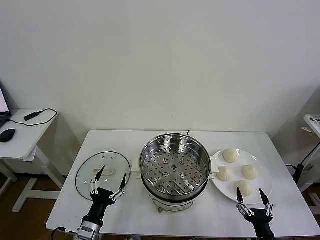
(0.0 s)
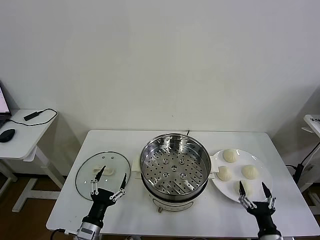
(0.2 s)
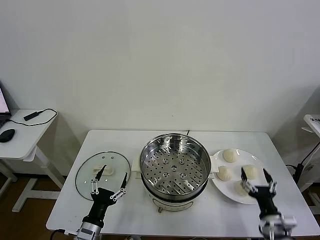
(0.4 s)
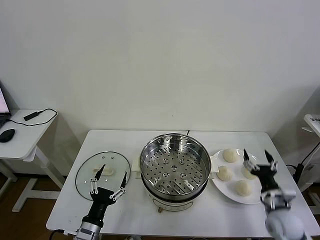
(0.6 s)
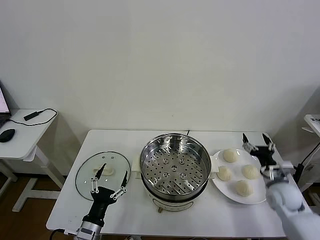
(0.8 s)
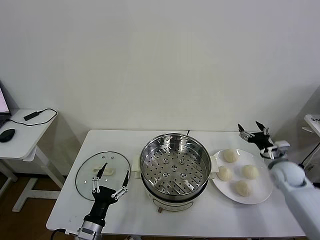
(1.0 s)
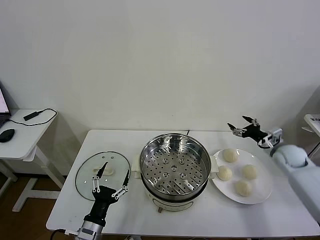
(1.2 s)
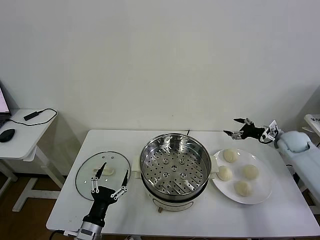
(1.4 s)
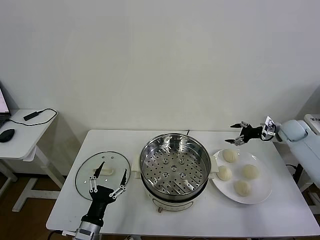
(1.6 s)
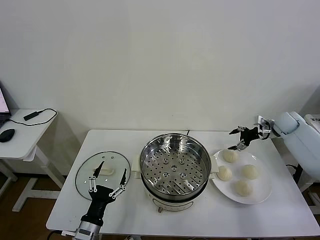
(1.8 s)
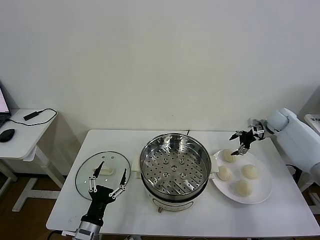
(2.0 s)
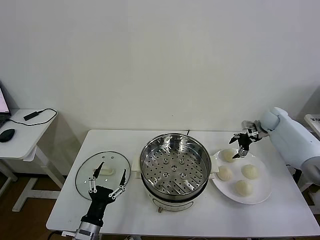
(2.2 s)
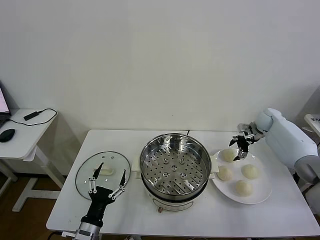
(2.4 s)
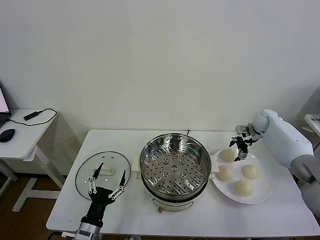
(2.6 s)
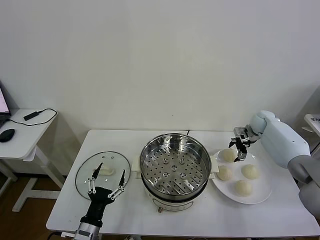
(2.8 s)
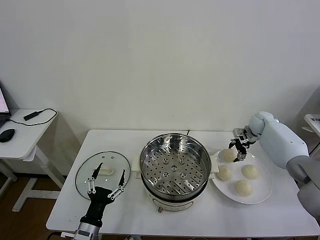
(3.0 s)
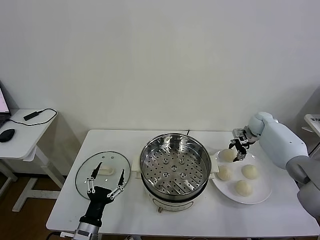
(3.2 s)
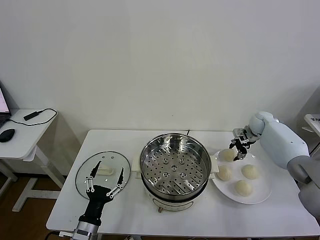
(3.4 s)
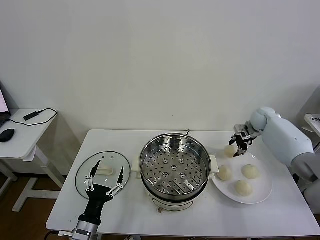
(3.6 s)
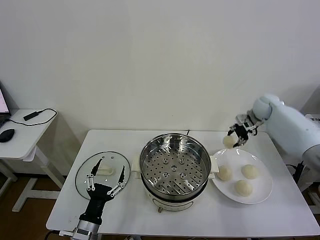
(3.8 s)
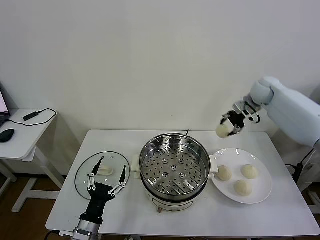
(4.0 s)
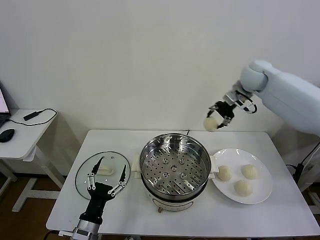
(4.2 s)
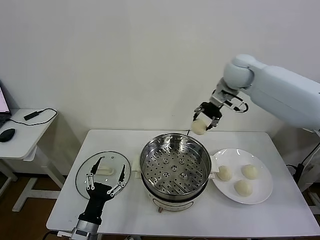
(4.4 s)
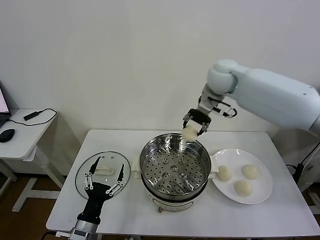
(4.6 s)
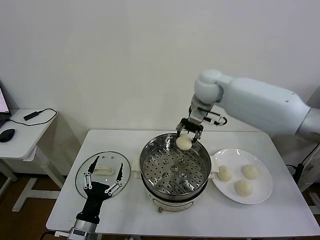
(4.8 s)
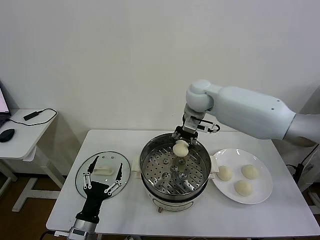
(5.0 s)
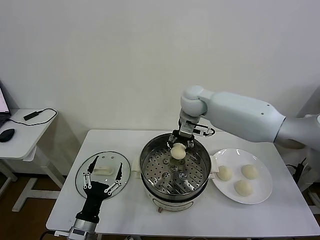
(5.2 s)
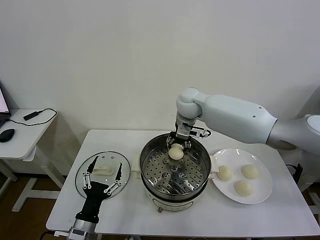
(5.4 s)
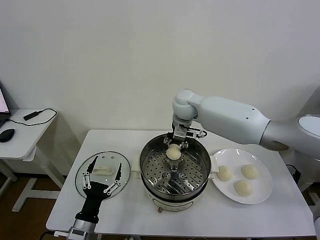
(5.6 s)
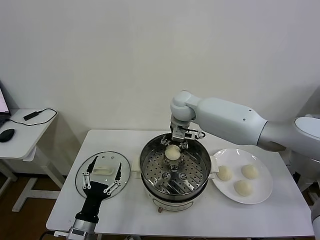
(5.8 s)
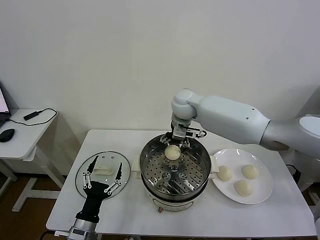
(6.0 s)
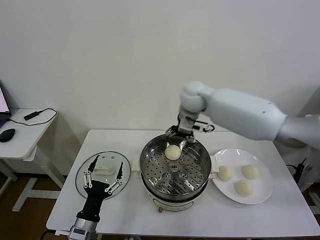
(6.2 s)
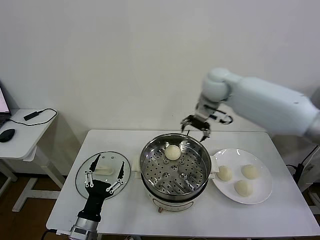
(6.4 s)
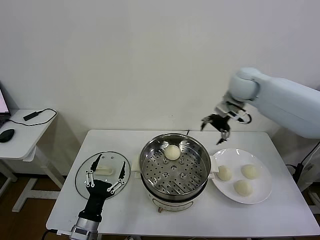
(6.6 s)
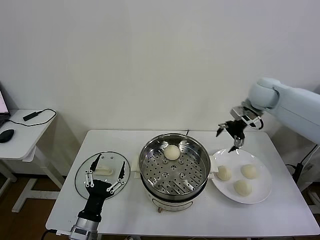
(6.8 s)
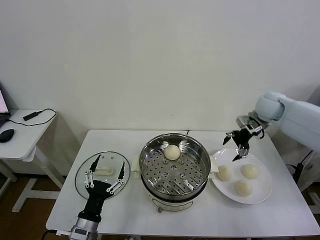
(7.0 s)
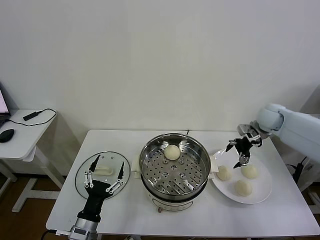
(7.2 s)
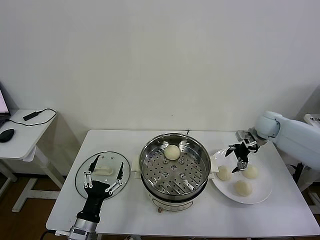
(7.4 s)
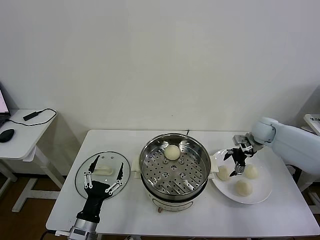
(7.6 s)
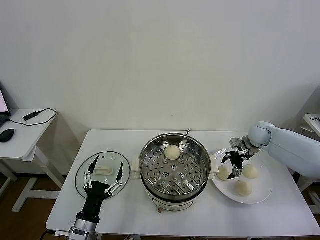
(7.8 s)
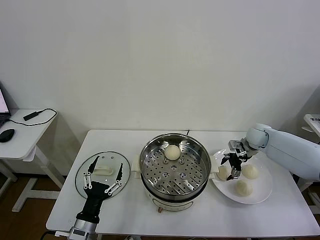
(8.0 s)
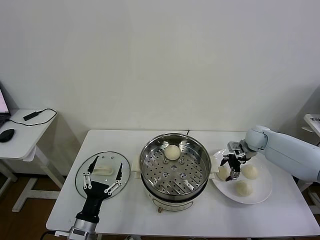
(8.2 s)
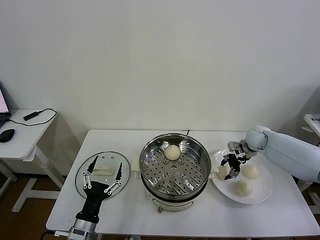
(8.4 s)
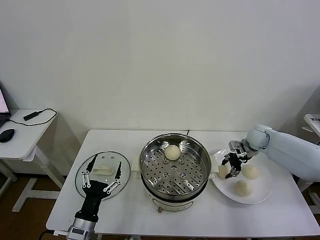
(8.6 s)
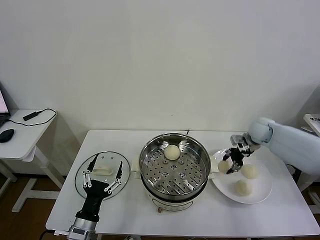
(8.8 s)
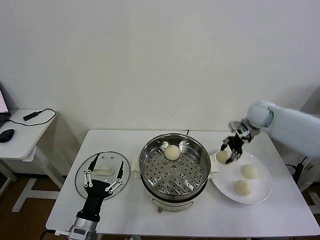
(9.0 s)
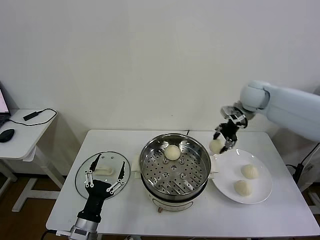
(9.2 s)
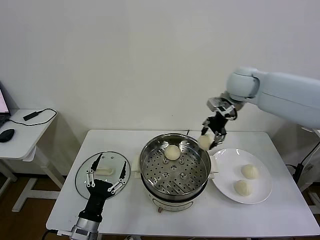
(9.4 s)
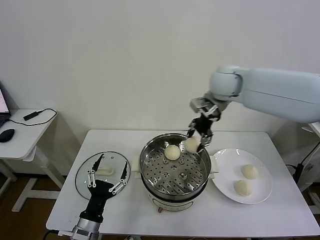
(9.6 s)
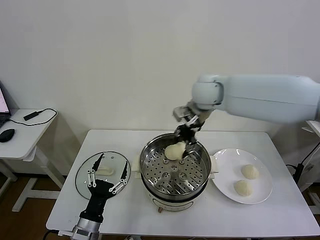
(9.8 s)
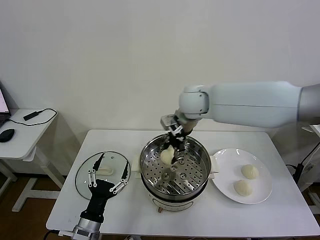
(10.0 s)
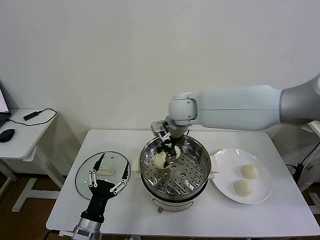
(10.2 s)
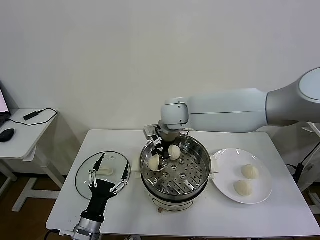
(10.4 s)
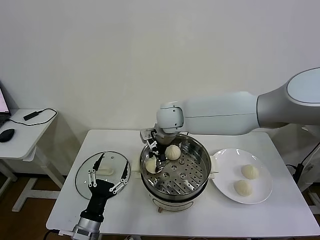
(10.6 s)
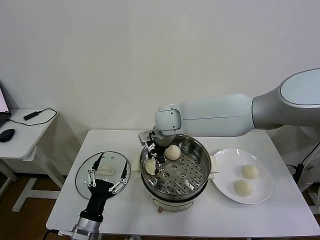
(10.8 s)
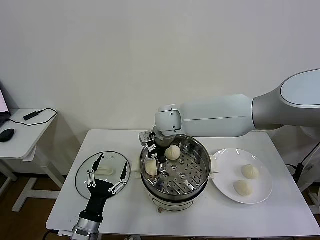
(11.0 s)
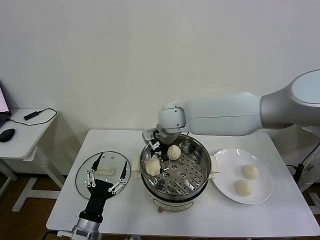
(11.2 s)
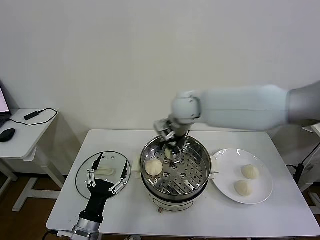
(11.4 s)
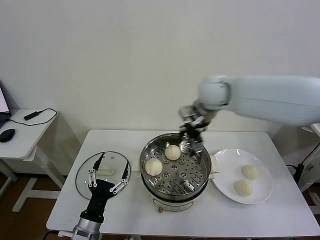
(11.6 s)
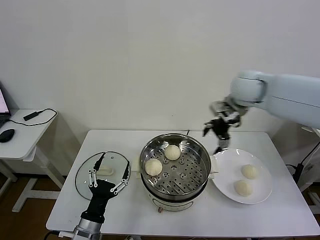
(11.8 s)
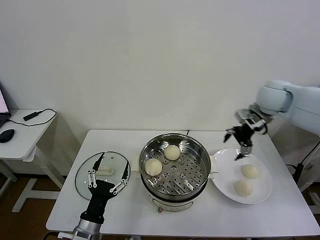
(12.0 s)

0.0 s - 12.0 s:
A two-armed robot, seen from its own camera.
Task of the whole recording: take steamed baozi put them in steamer then cover it.
Step, 0.0 s - 3.2 s: Grasp the baozi in the plate with right gripper.
Step, 3.4 s - 5.8 s: Place the baozi on the steamer with right gripper.
Step, 6.2 s - 8.4 s: Grasp the baozi in the plate with right gripper.
Step, 8.6 s - 11.0 s: Place the baozi on the steamer with right gripper.
1.6 s - 3.0 s: The right gripper travels to the left and forward by some 10 cm, and closes its fingers.
3.0 s - 4.4 s: The right gripper travels upward and to the left by roughly 35 cm, and closes.
4.4 s - 6.0 s: The right gripper is displaced to the left and downward by about 15 cm, and opens up.
6.0 s - 7.6 s: The right gripper goes about 35 cm to the right and downward.
7.6 s - 9.0 s: The right gripper goes some 15 cm upward and to the left, and closes up.
9.0 s - 10.4 s: The right gripper moves to the left, approximately 30 cm.
10.4 s - 12.0 s: The right gripper moves to the right, some 30 cm, and opens up.

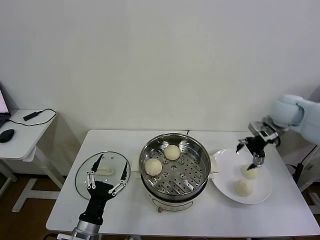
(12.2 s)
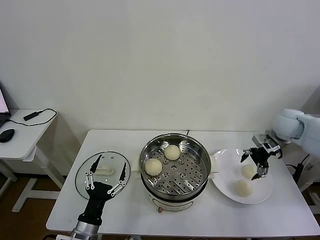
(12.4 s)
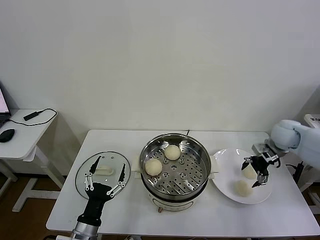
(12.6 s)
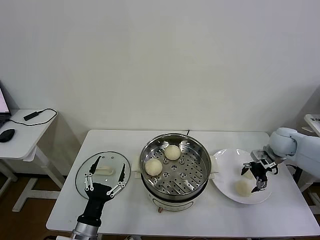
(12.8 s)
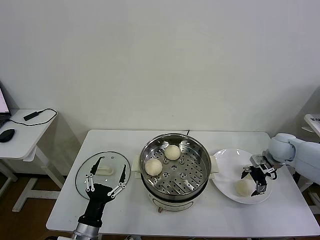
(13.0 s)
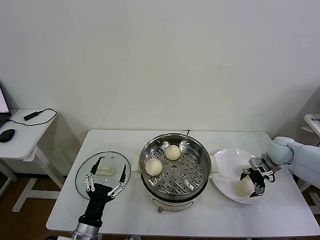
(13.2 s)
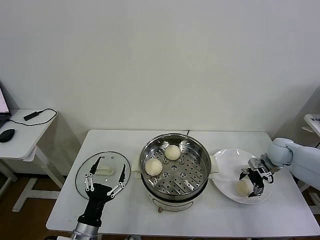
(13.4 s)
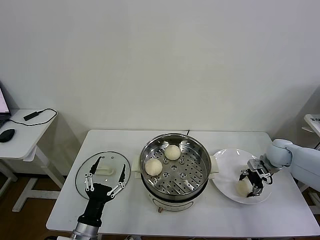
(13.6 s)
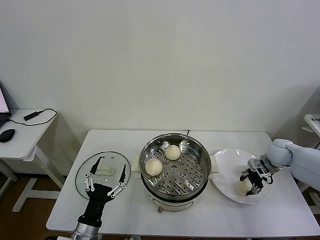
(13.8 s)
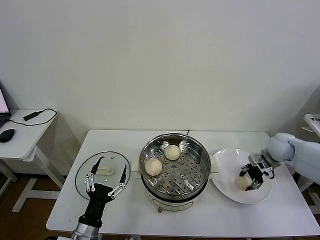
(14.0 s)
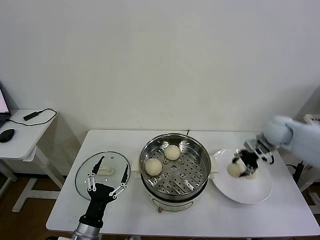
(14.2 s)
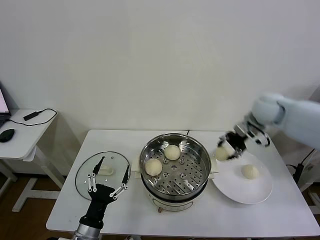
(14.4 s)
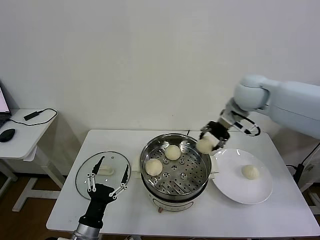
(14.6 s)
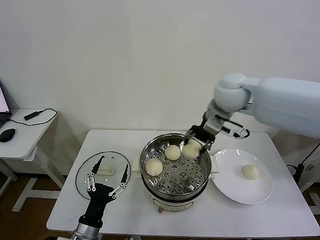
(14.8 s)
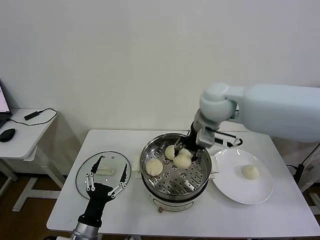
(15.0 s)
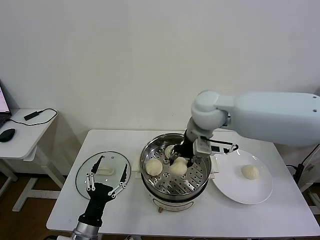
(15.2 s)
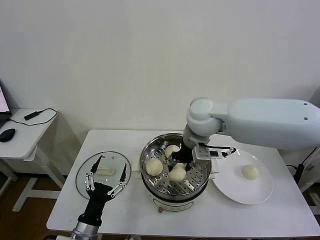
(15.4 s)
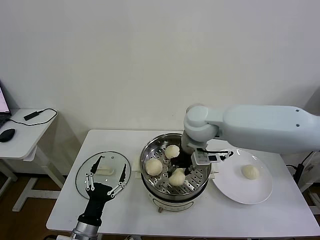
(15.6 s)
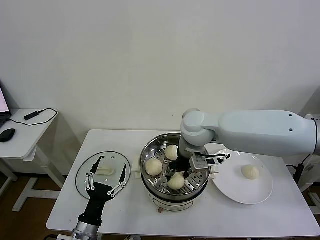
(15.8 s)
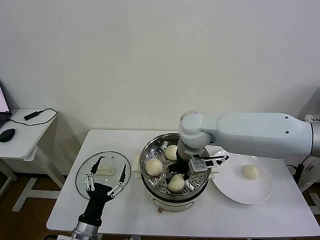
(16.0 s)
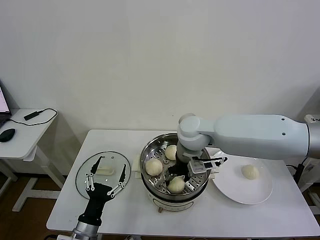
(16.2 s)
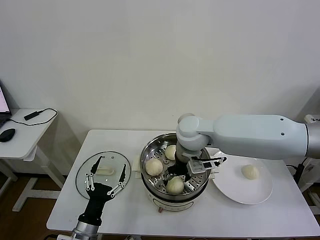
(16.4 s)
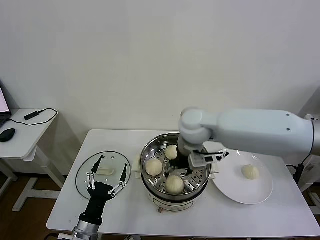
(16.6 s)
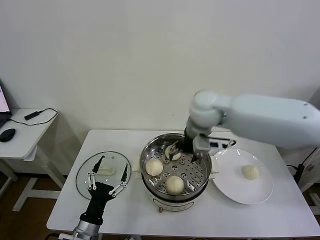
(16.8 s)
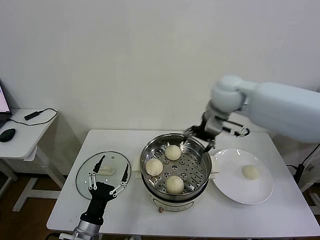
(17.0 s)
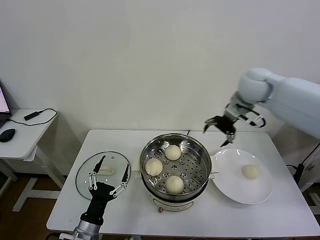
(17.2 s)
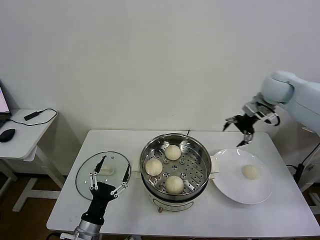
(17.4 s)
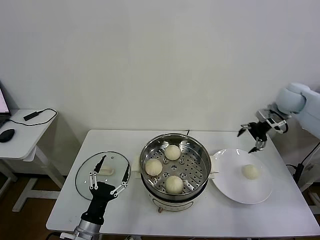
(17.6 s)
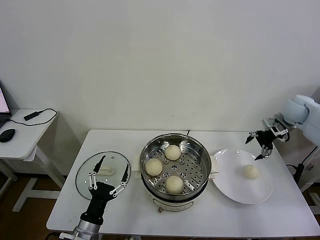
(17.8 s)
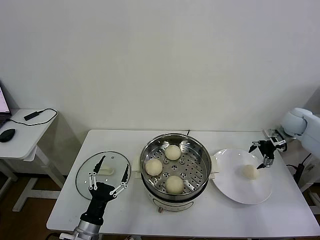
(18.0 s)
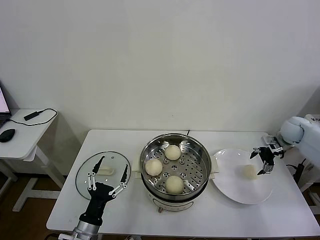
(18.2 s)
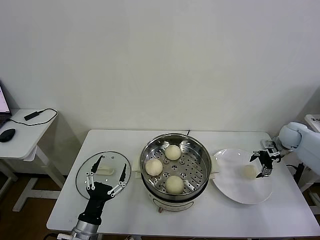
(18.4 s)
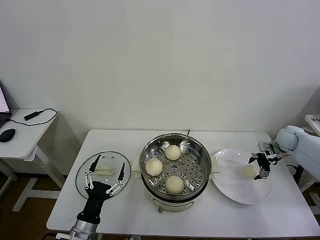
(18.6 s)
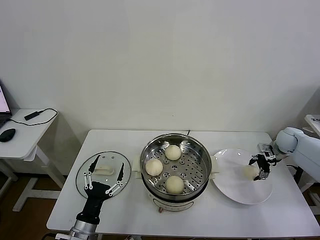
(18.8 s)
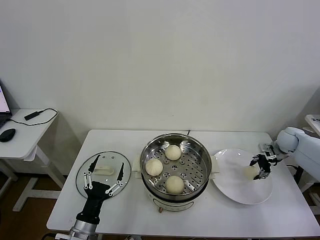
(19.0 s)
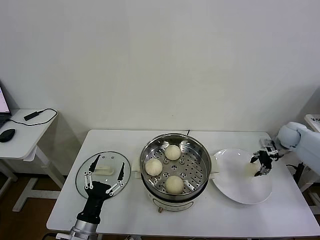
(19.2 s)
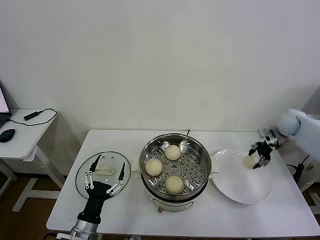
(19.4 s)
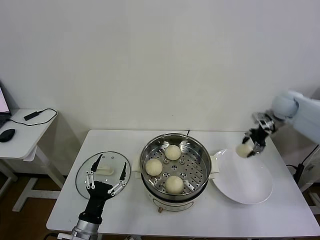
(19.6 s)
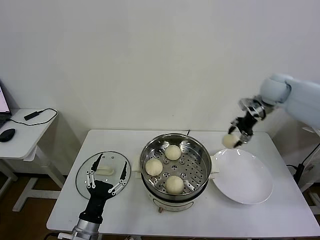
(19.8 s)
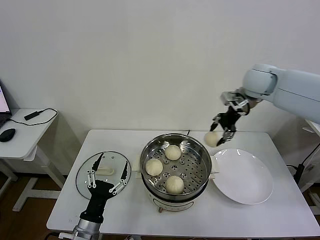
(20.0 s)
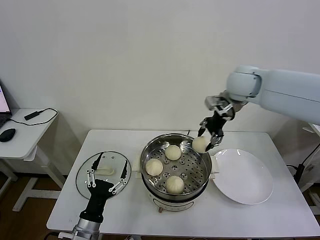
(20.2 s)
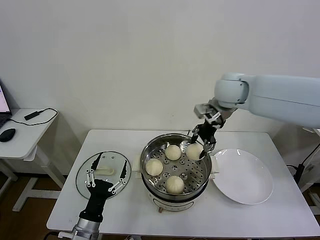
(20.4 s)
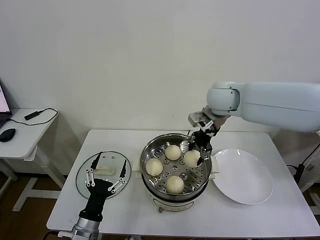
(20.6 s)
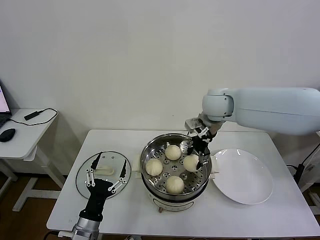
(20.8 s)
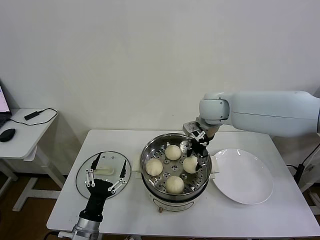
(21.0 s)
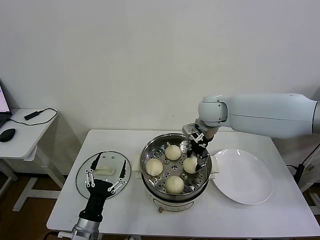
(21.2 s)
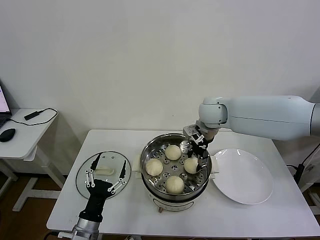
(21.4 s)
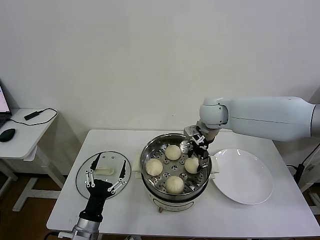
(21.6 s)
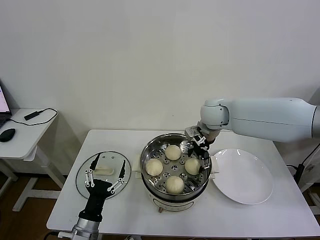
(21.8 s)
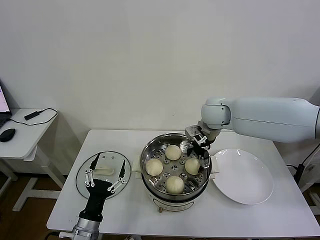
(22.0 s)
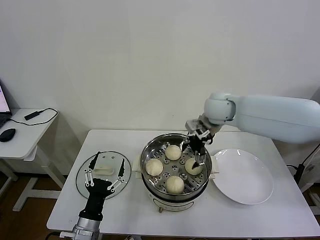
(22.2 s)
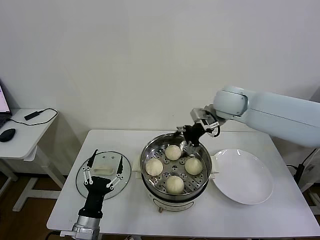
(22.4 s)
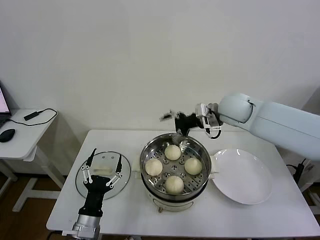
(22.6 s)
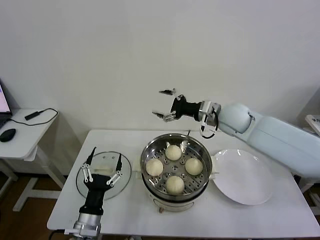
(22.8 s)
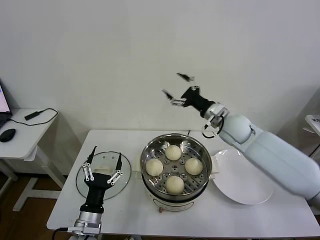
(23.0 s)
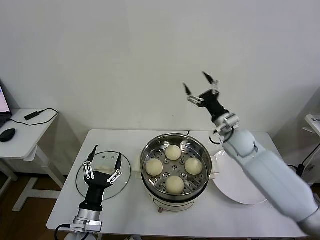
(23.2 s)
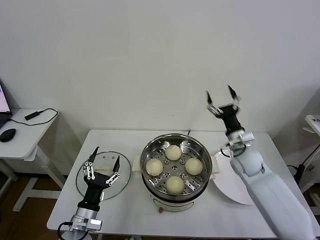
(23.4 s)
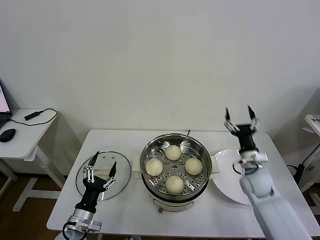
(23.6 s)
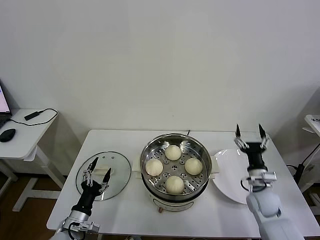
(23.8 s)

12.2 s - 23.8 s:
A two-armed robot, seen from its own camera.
Task of the whole recording: take steamed baozi put them in steamer then cover it.
Step, 12.2 s - 13.8 s: Grasp the baozi in the plate with right gripper.
Step, 14.2 s - 16.4 s: Place the baozi on the steamer with right gripper.
Step, 16.6 s - 19.2 s: Grasp the baozi in the plate with right gripper.
Step, 19.4 s - 21.8 s: Place the baozi on the steamer with right gripper.
12.2 s - 13.6 s: The right gripper heads downward, covering roughly 15 cm, and closes up.
13.6 s - 15.0 s: The right gripper shifts roughly 35 cm to the left and upward, and closes up.
15.0 s - 16.6 s: The right gripper opens.
16.6 s - 18.0 s: The right gripper is displaced to the right by roughly 40 cm.
18.0 s - 19.4 s: The right gripper travels downward and back again, some 5 cm each way, and closes.
19.4 s - 21.0 s: The right gripper heads to the left, covering about 30 cm.
21.0 s - 22.4 s: The right gripper ends up roughly 5 cm from where it was, and opens up.
22.4 s - 23.8 s: The left gripper travels to the left and downward by roughly 10 cm, while the right gripper heads downward, backward and to the right, covering roughly 35 cm.
